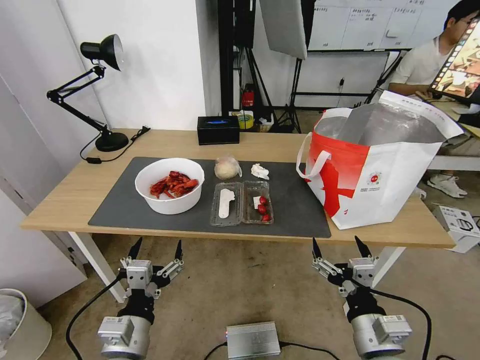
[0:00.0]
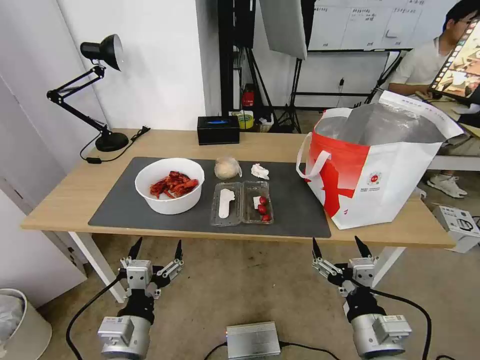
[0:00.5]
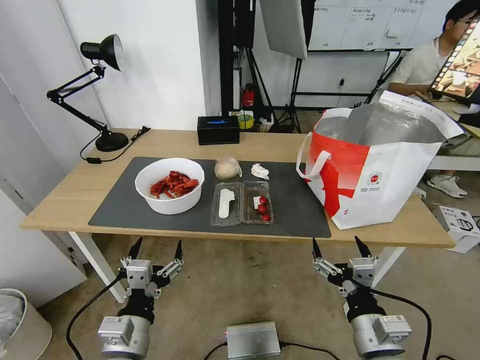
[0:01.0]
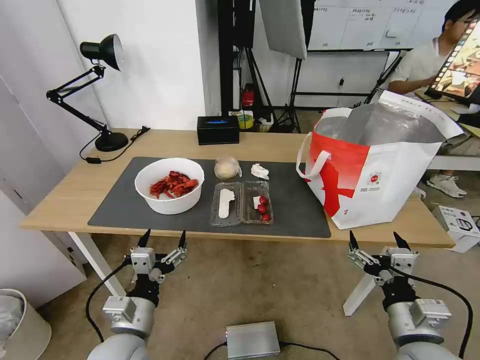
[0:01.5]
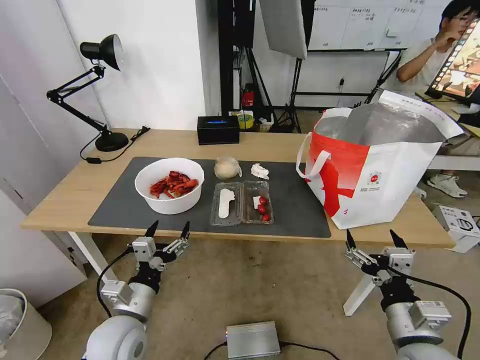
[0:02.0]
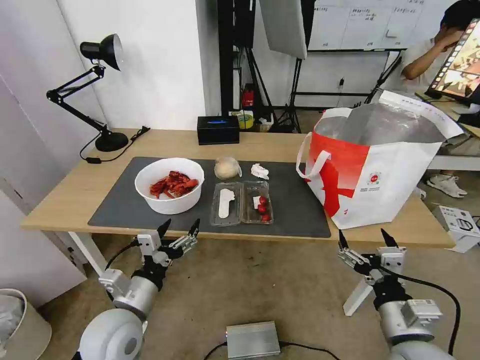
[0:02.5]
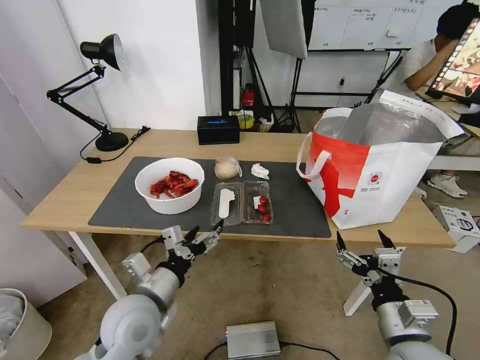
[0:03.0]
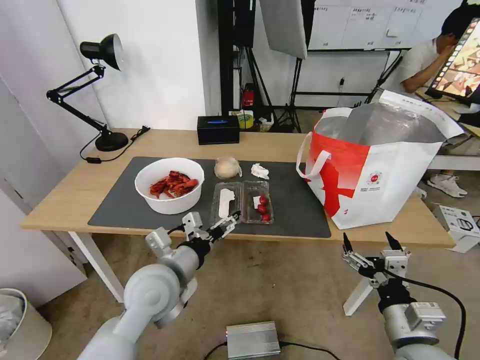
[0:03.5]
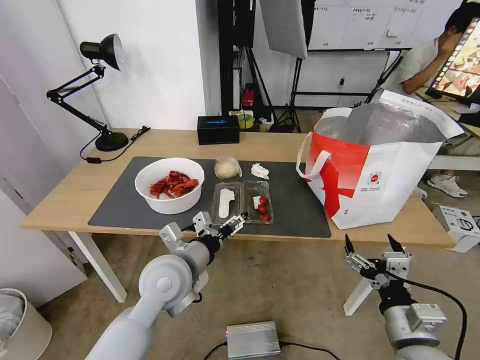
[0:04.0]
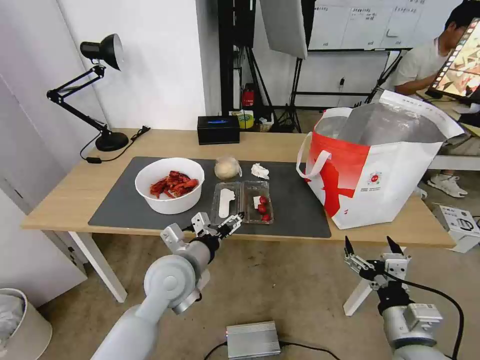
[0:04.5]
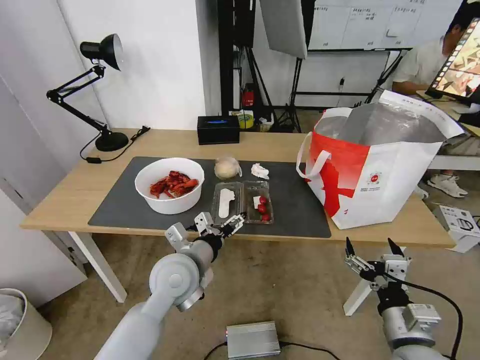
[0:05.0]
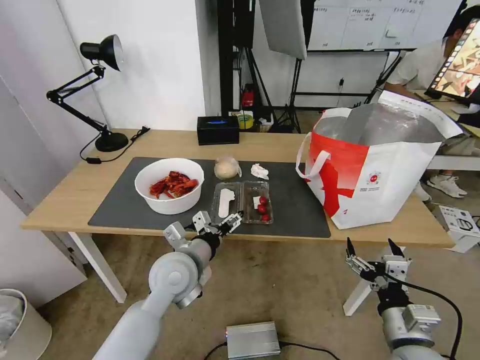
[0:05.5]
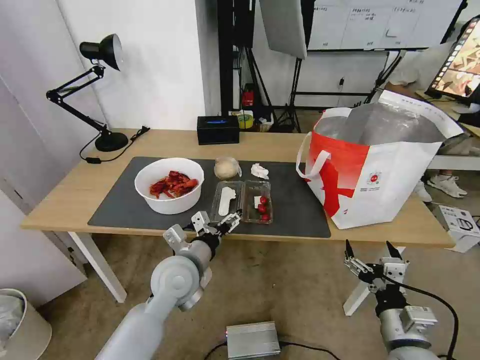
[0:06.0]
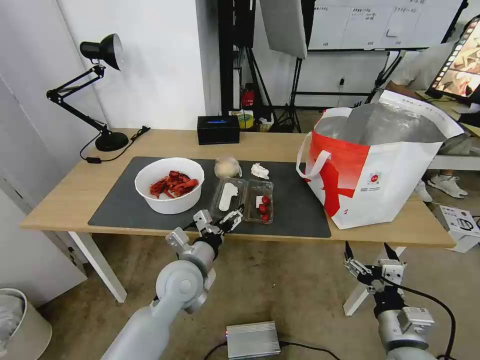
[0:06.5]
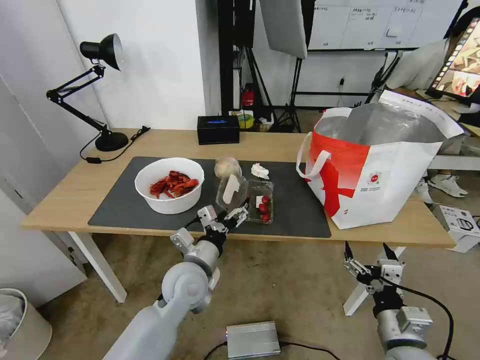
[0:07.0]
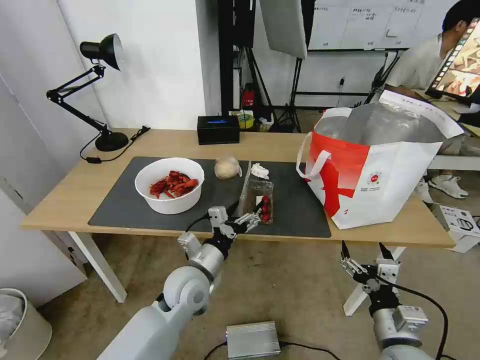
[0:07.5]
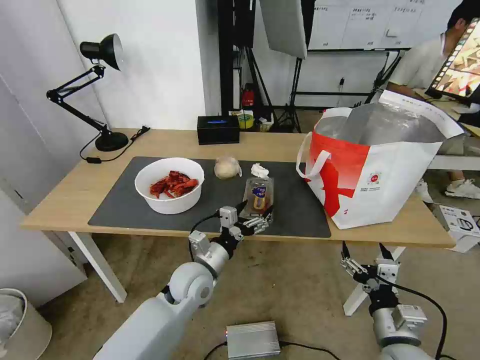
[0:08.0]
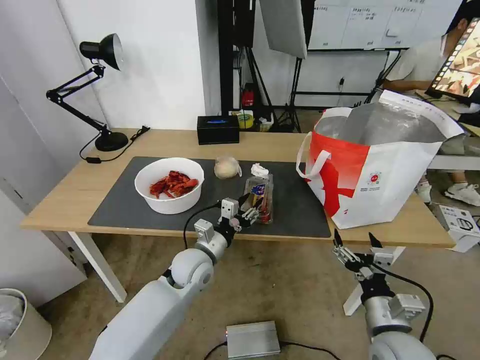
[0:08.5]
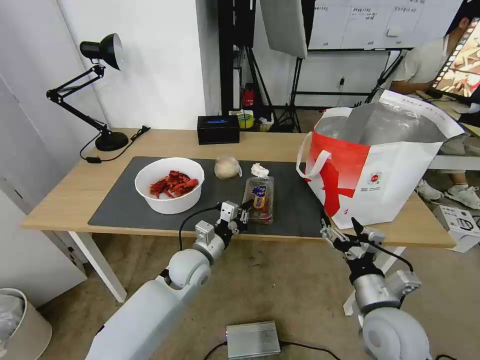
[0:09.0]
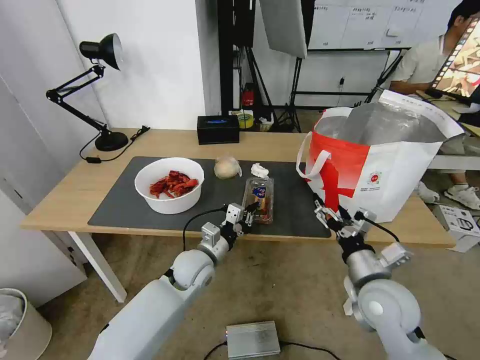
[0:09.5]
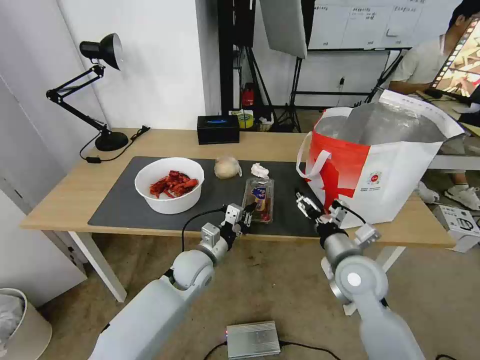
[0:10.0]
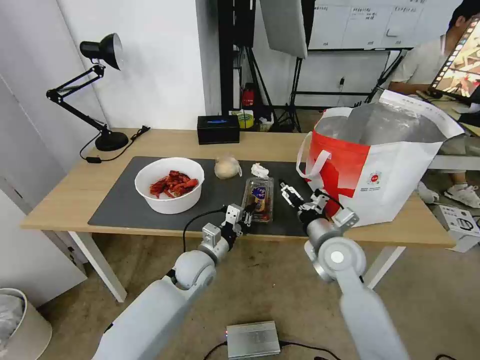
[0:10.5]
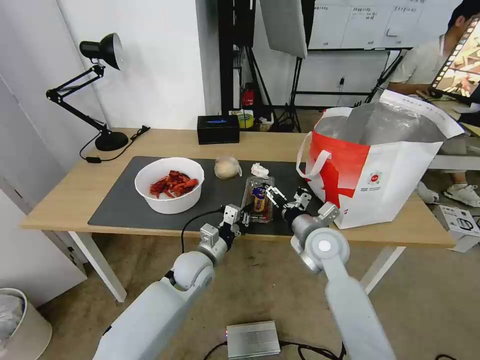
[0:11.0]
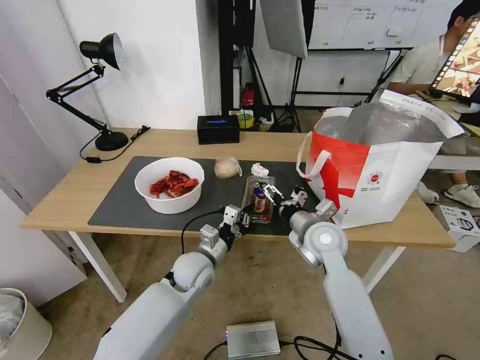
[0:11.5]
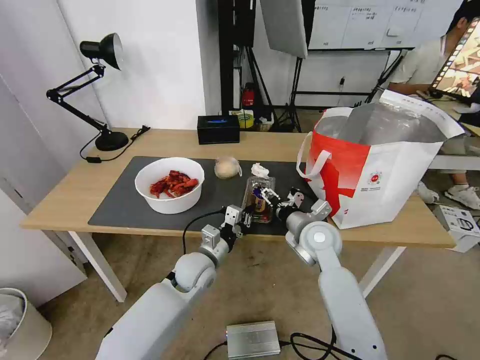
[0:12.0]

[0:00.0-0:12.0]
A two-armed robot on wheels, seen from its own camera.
Task of the whole recording: Pick up the trash from the table and place it into the takeout bag.
0:02.0 to 0:04.0: The left gripper travels upward, to the right and forward by about 15 cm.
0:04.0 to 0:06.0: The grippers move only a little.
0:06.0 to 0:08.0: The left gripper is displaced downward by about 5 cm.
0:08.0 to 0:10.0: The left gripper closes its fingers. Meanwhile the right gripper moves forward and upward, about 15 cm.
0:10.0 to 0:12.0: The right gripper is displaced forward and to the left by approximately 10 cm.

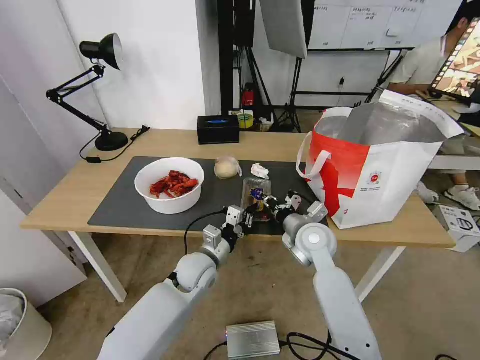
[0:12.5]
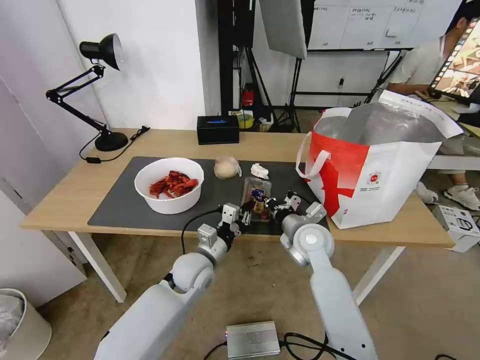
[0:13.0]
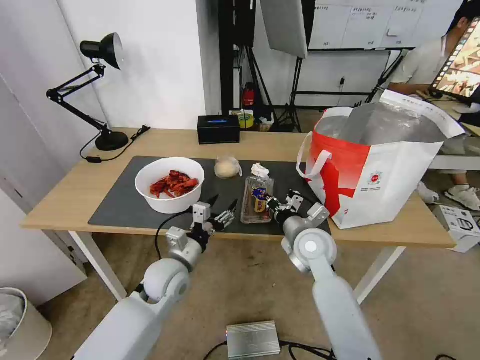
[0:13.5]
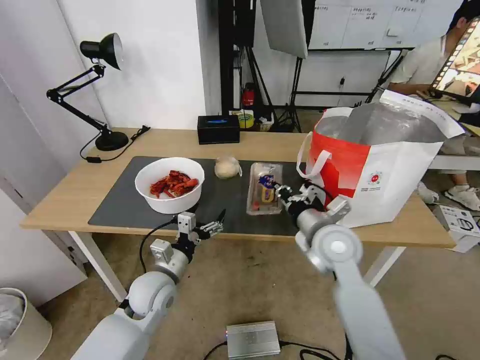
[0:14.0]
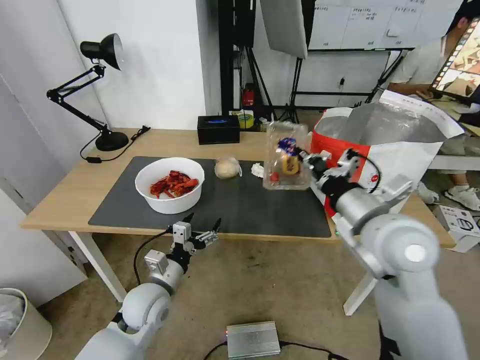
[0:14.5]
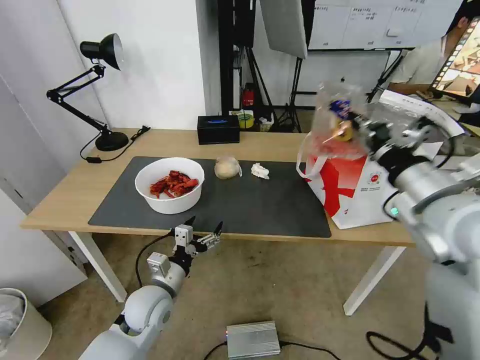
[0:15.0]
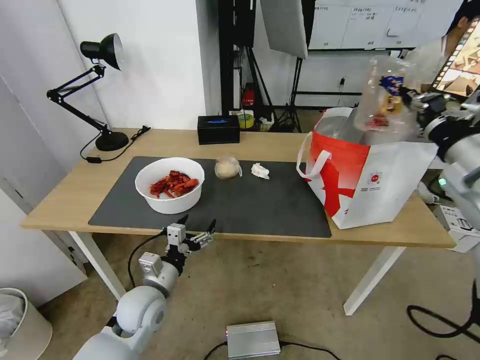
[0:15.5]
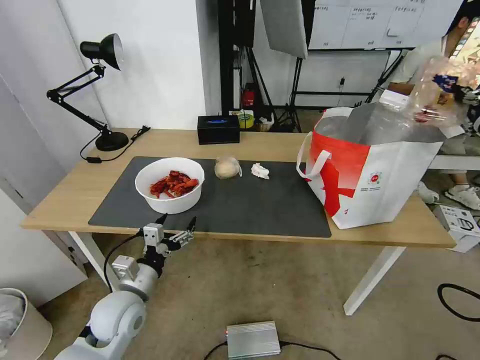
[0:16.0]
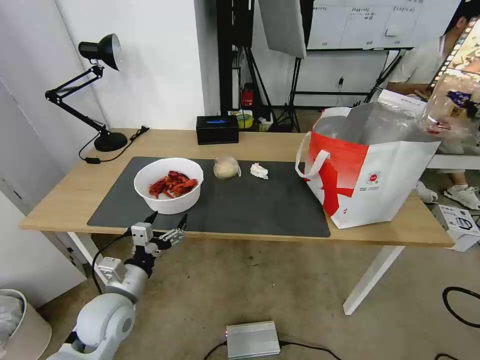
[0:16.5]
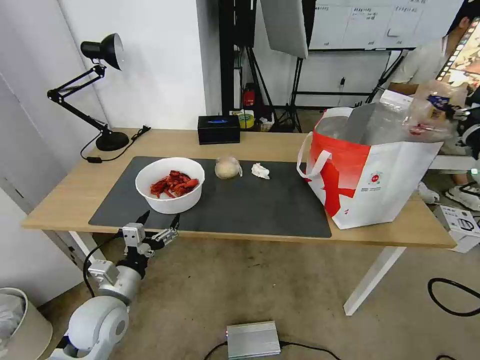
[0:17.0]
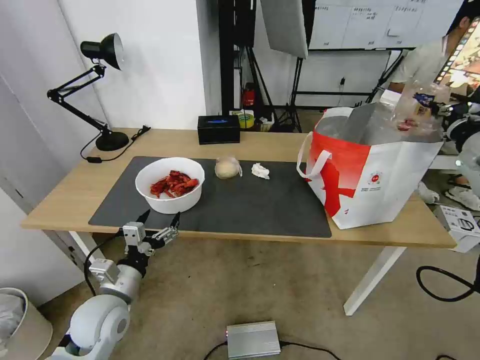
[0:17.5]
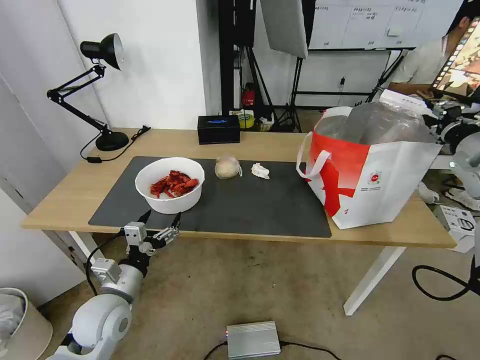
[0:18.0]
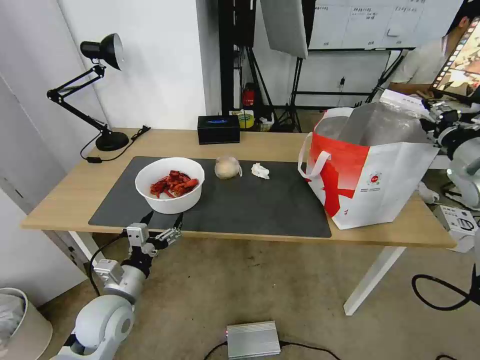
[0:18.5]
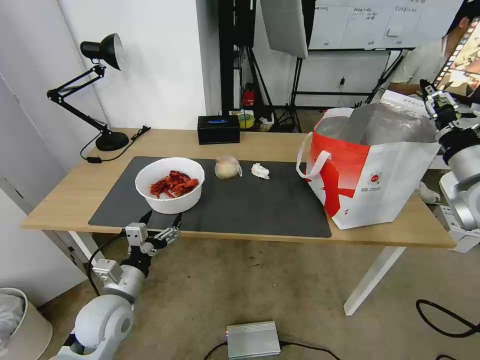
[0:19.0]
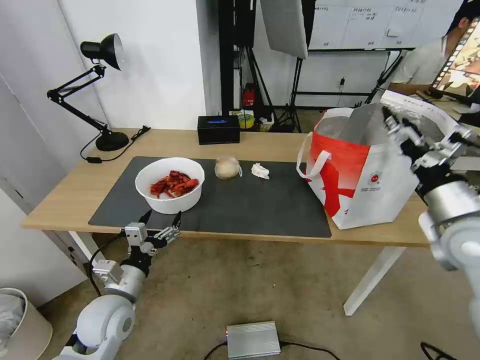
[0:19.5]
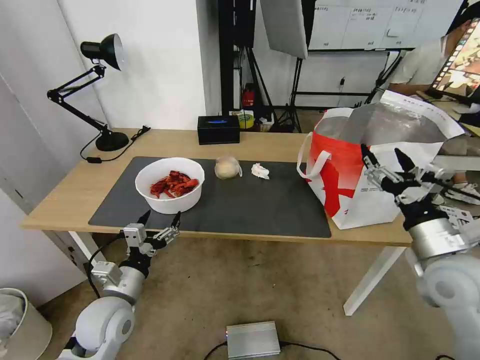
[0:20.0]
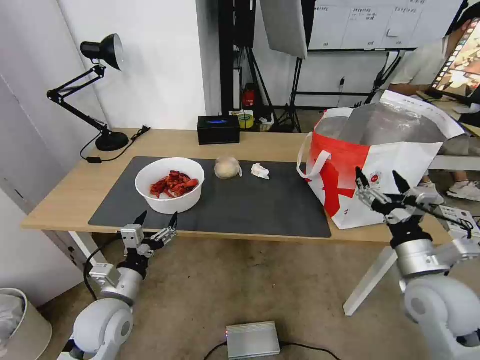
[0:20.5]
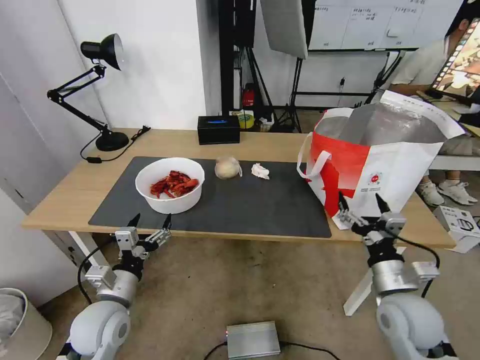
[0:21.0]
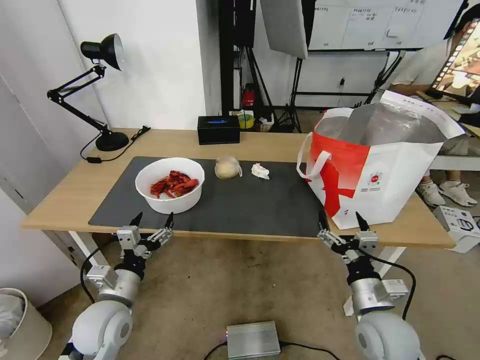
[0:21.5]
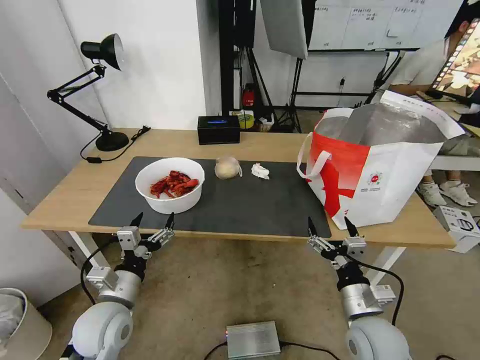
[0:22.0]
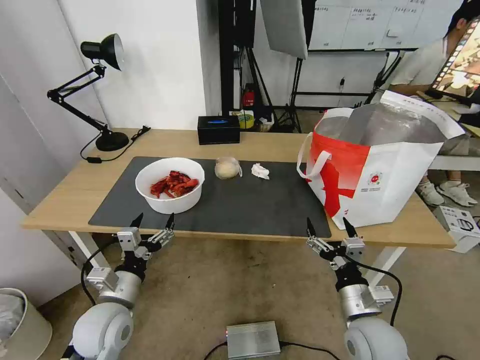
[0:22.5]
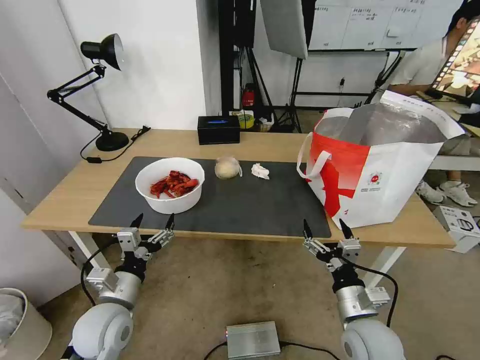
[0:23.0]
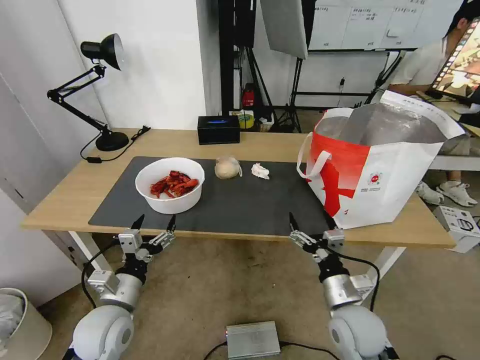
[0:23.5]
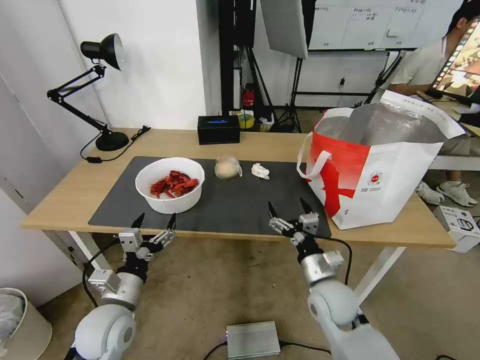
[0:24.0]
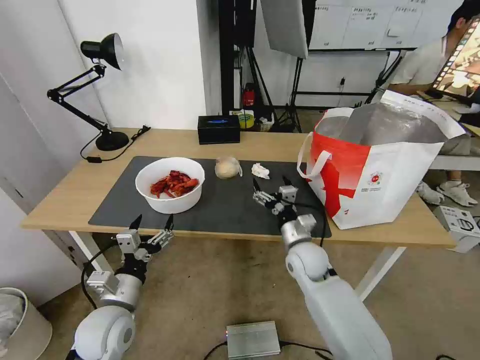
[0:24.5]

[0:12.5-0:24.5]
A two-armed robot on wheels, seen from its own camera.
Task of the whole recording: Pick up the trash from the table and place it into the takeout bag.
0:12.5 to 0:14.5: The left gripper heads to the left and backward, covering about 15 cm, and opens its fingers, while the right gripper moves upward and backward, approximately 20 cm.
0:14.5 to 0:16.5: The left gripper heads to the left, covering roughly 5 cm, while the right gripper goes roughly 25 cm to the right.
0:16.5 to 0:18.5: The right gripper ends up some 5 cm from where it was, and opens up.
0:18.5 to 0:20.5: The right gripper goes approximately 20 cm downward, backward and to the left, and opens its fingers.
0:20.5 to 0:22.5: The right gripper heads downward and to the left, covering roughly 15 cm.
0:22.5 to 0:24.5: The right gripper travels forward and to the left by about 20 cm.

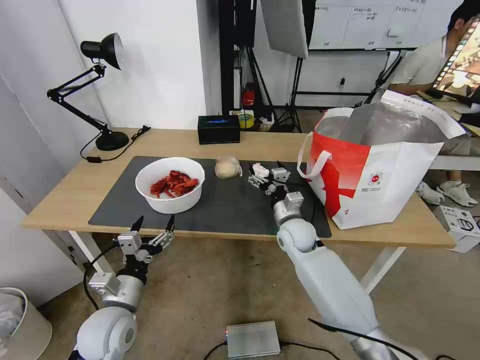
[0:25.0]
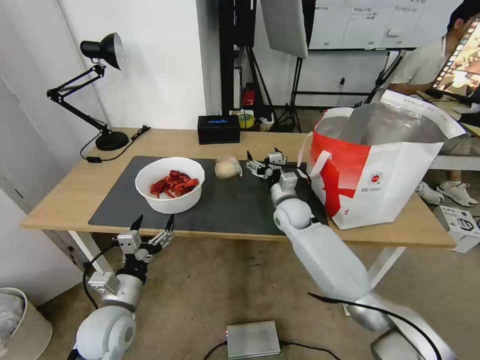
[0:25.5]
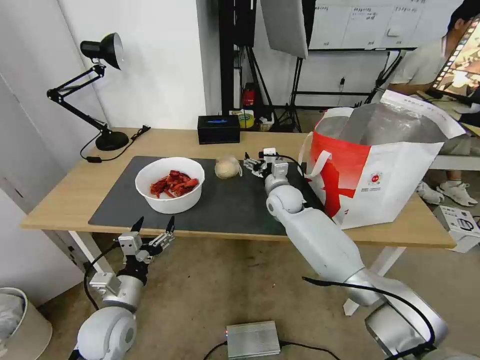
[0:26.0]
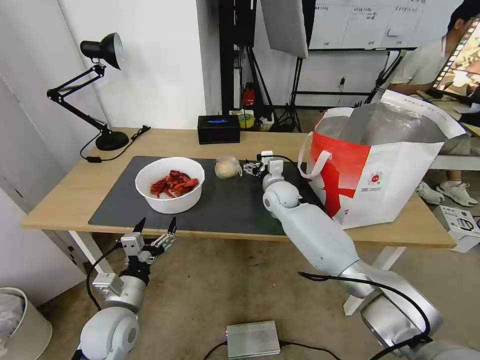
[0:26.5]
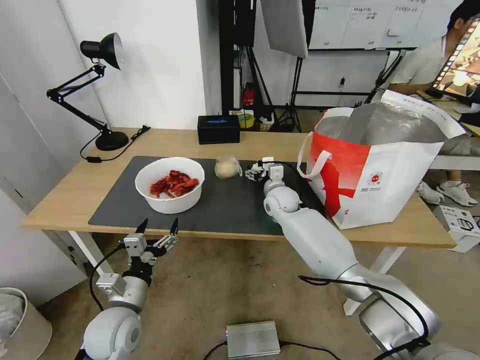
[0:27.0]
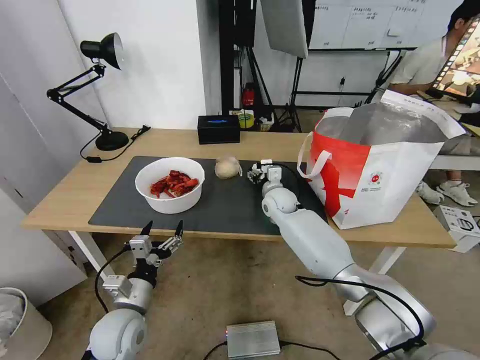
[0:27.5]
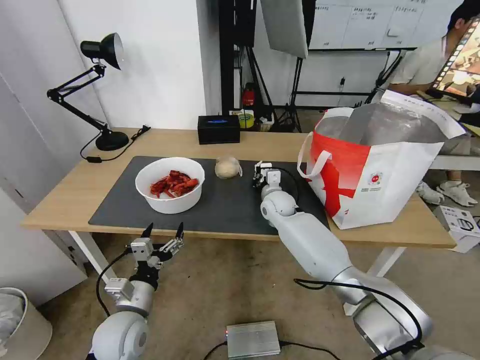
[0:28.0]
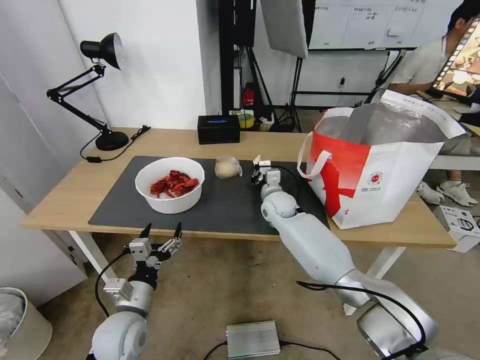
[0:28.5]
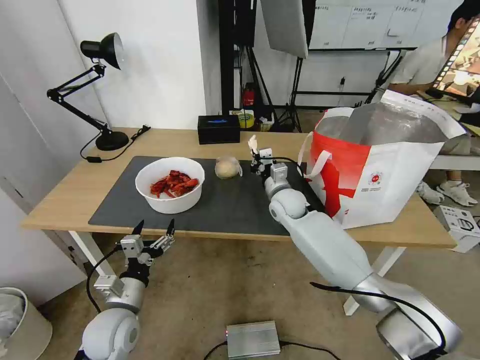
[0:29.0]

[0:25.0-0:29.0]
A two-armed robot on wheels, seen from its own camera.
Task of the whole recording: Pick up the trash from the table and place it into the takeout bag.
0:25.0 to 0:27.0: The right gripper is displaced forward by roughly 10 cm.
0:27.0 to 0:29.0: The right gripper closes its fingers.
